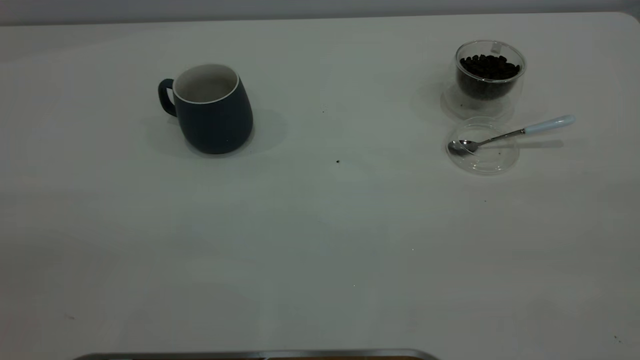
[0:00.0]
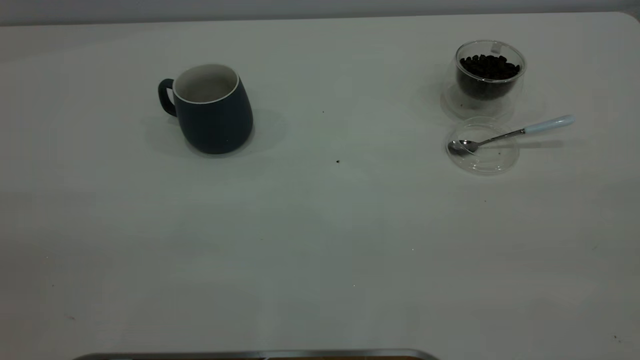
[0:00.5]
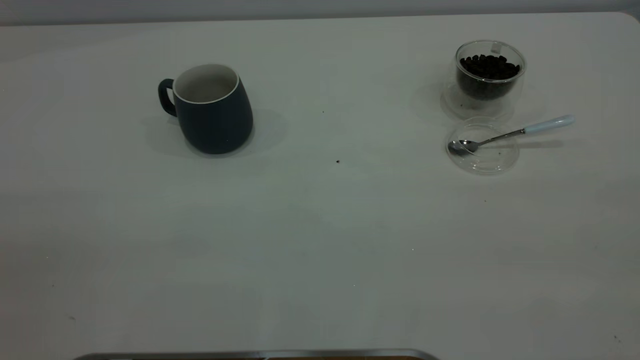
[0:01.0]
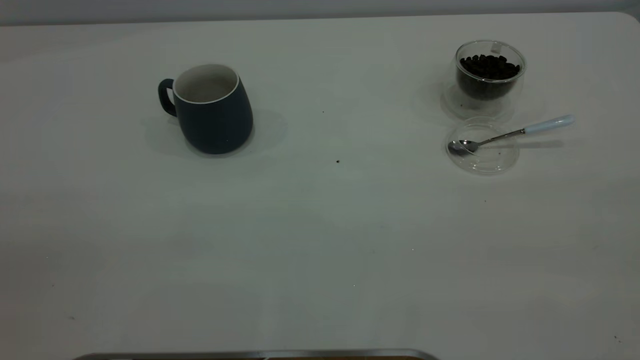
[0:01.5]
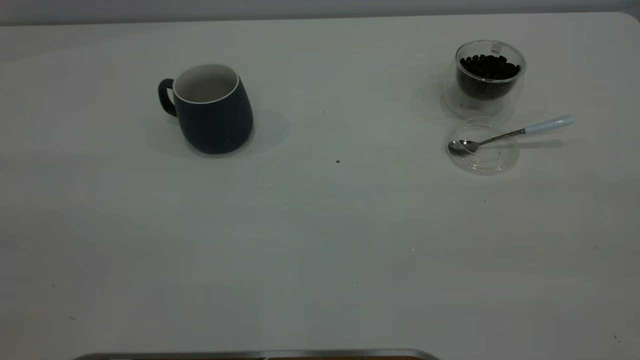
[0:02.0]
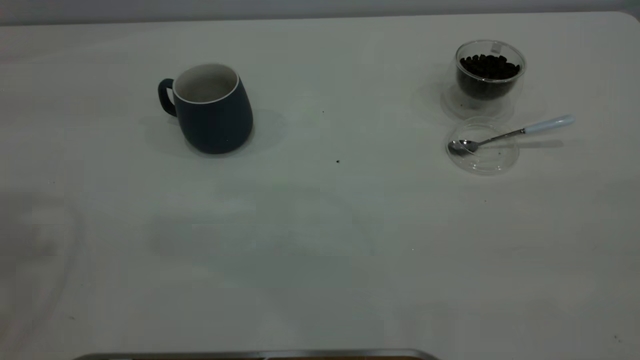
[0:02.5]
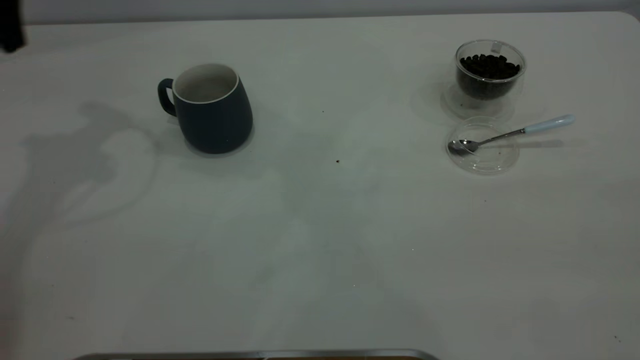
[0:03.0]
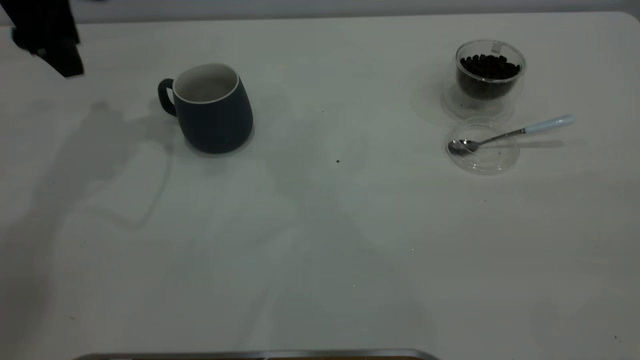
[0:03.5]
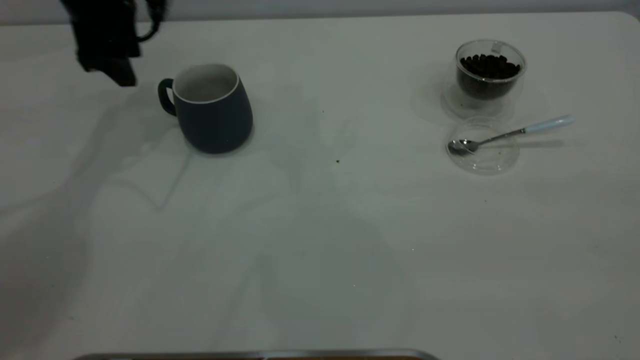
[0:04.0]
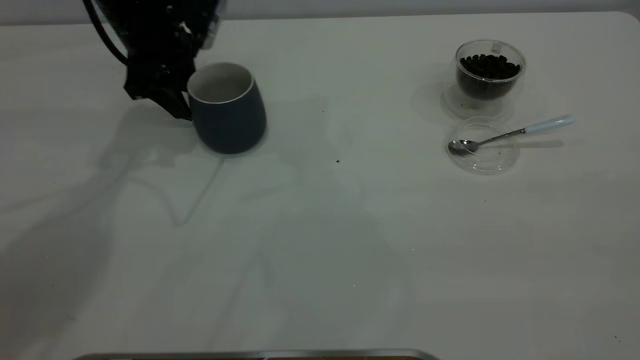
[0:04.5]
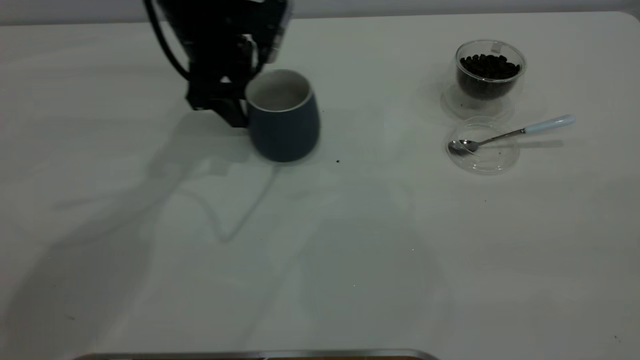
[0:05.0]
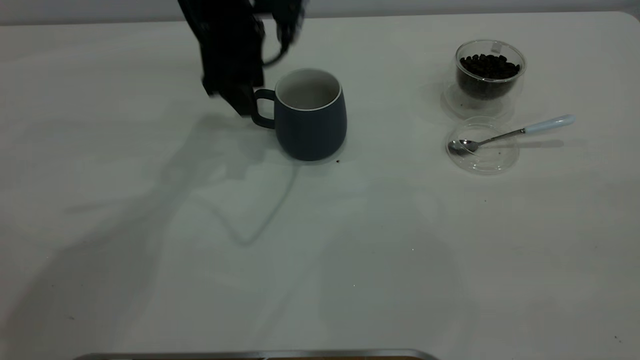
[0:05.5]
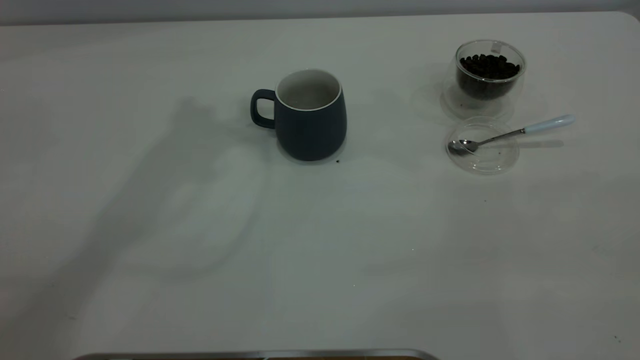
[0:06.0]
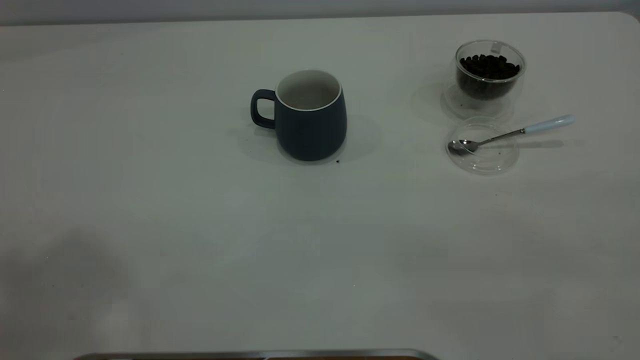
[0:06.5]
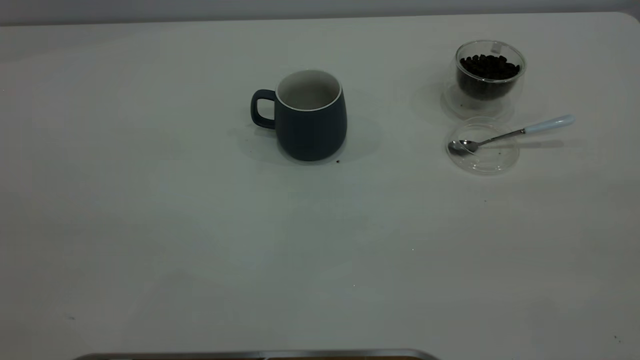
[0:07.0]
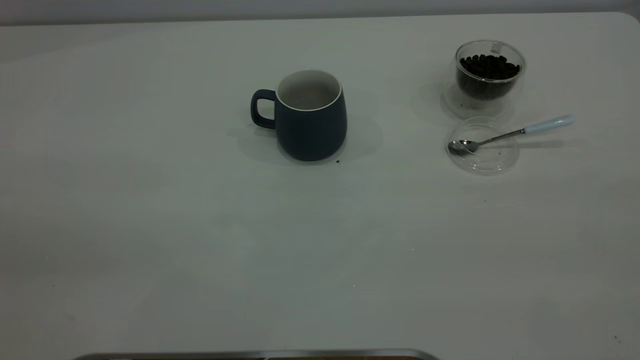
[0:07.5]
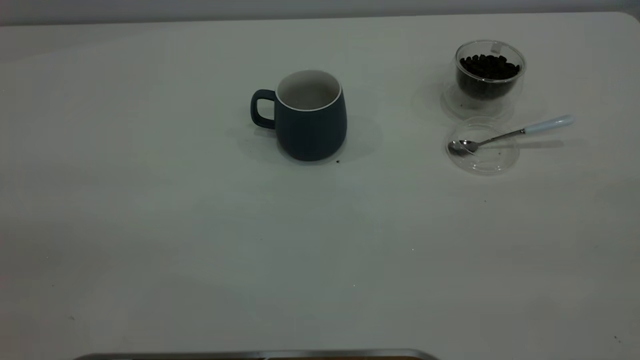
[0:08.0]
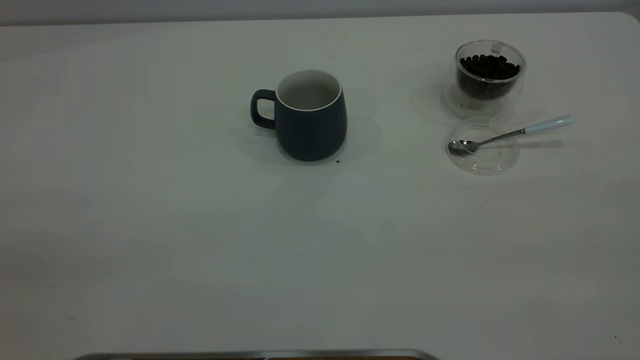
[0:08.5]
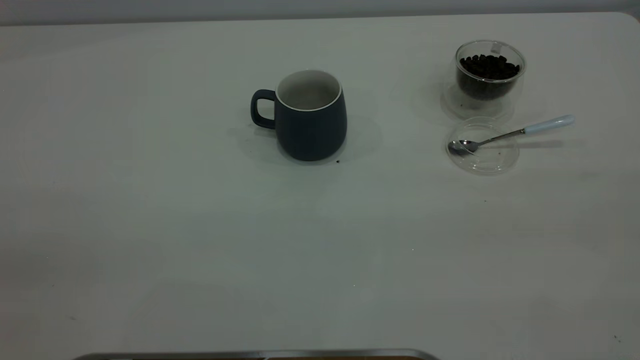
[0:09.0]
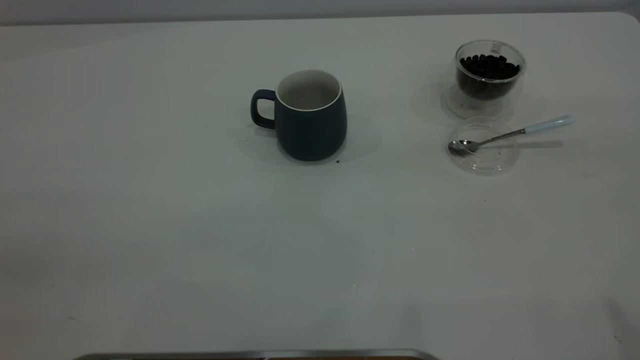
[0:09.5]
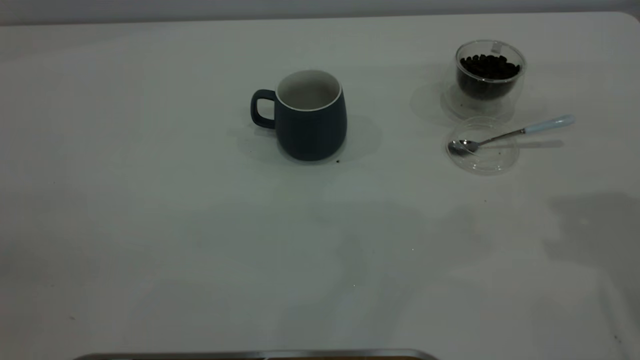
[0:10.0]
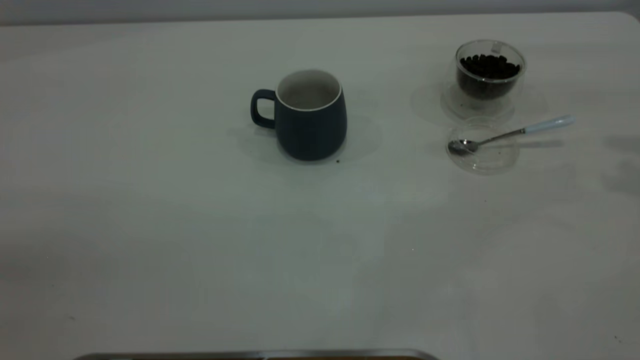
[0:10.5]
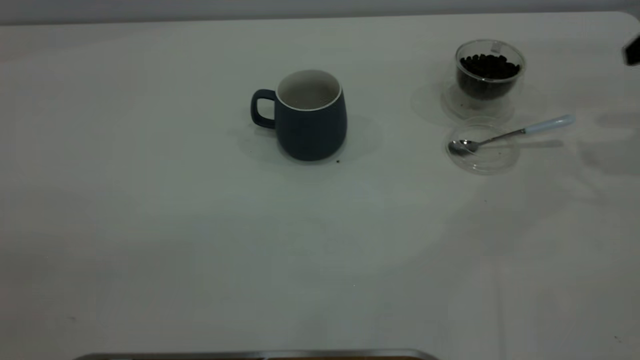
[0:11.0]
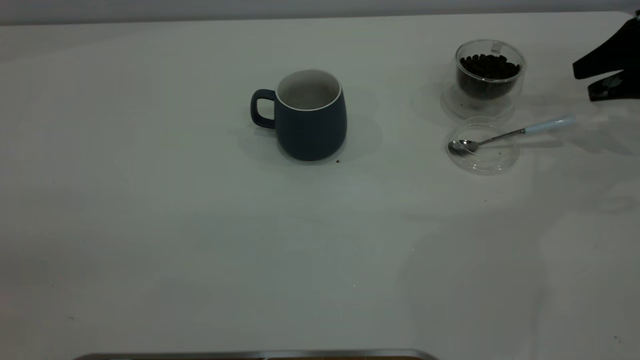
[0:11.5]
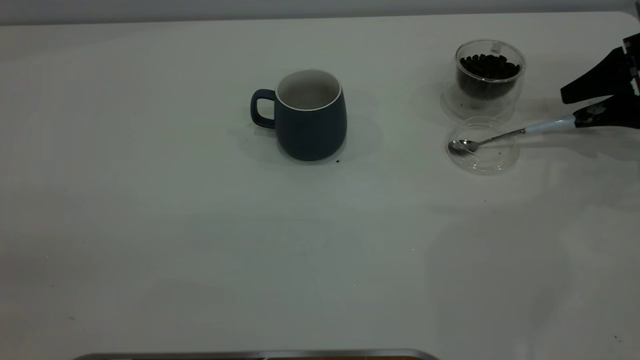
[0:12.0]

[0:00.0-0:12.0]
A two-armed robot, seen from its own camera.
Task of the whole recording: the left gripper place the grey cup in the center of the table, the right gripper take the blue spoon from the cup lid and scoop out the coffee beans from the coffee cup and put them into the grey cup, the right gripper put the spoon back into the cup lid.
Step, 0:00.0 to 0:05.5: Move the cup to the center of view.
0:02.0 to 0:04.0: The left gripper travels forward and downward by some 50 cm.
0:04.0 to 0:06.0: The left gripper is displaced upward by some 25 cm.
0:10.0 to 0:12.0: The right gripper moves downward, forward and to the right, roughly 30 cm.

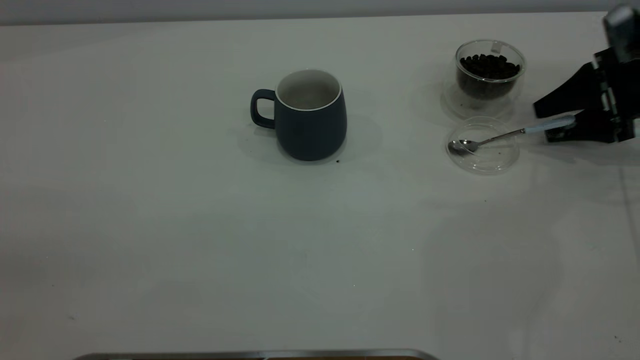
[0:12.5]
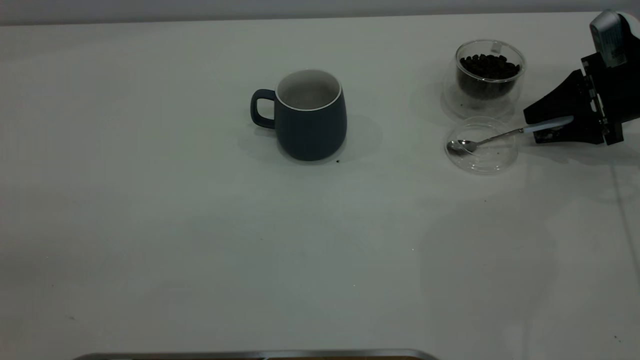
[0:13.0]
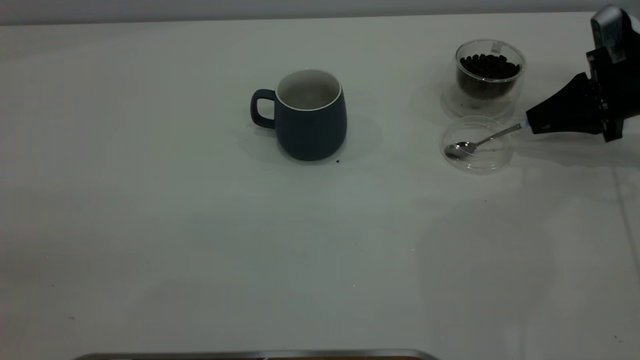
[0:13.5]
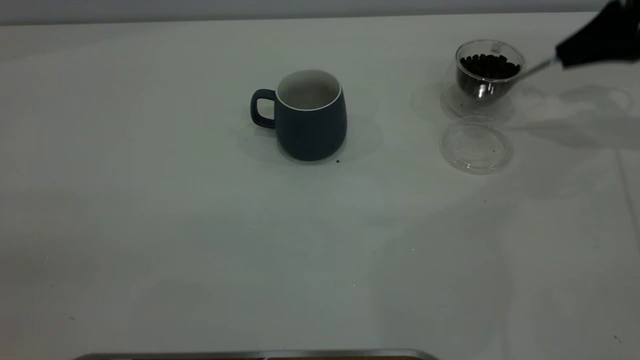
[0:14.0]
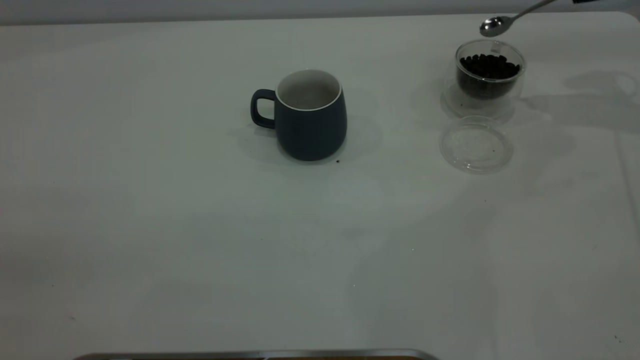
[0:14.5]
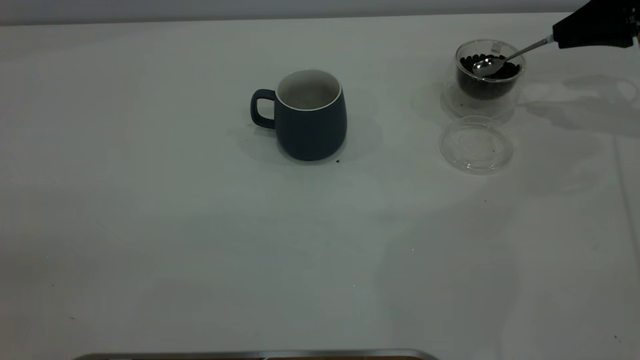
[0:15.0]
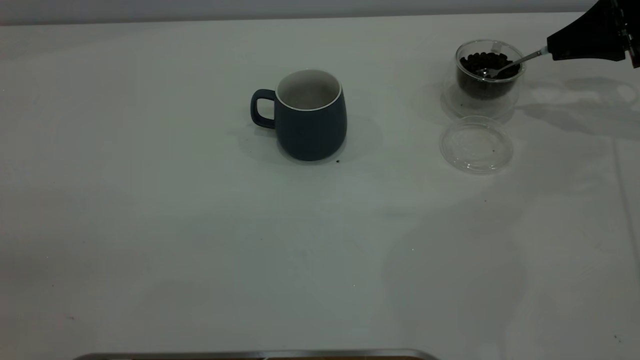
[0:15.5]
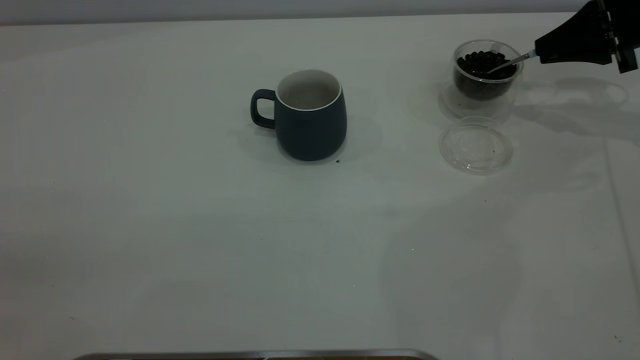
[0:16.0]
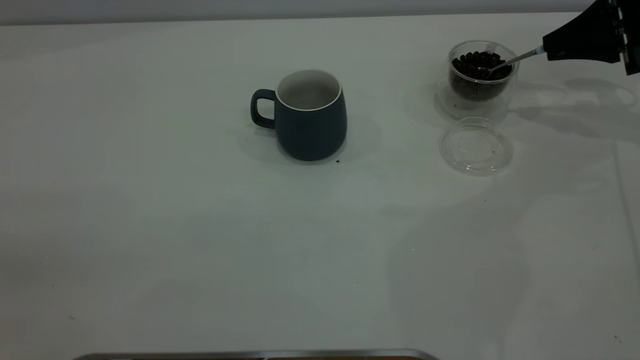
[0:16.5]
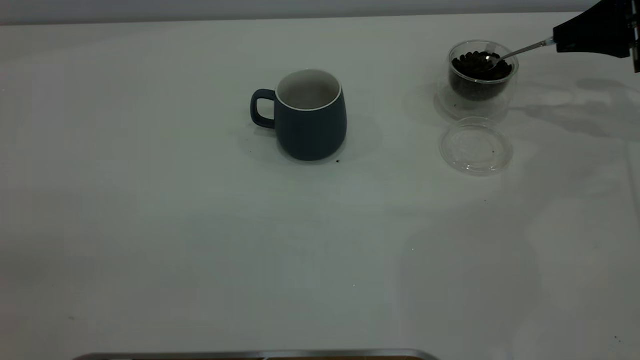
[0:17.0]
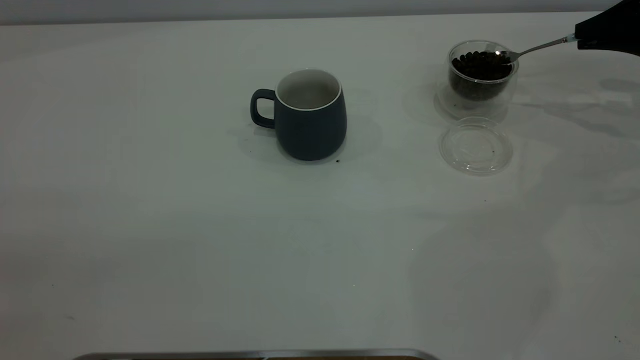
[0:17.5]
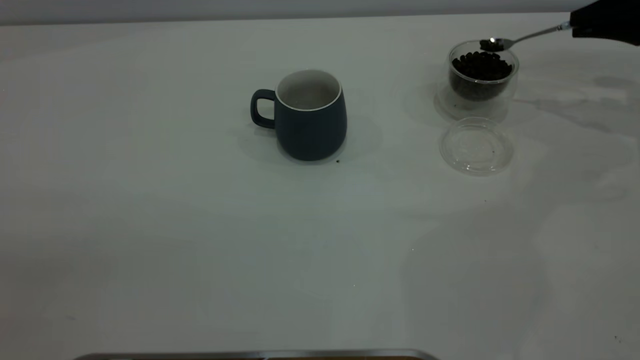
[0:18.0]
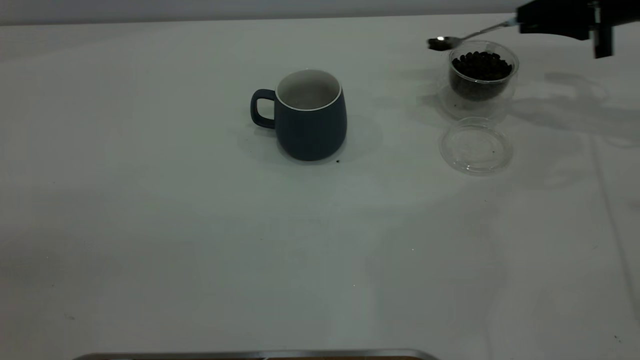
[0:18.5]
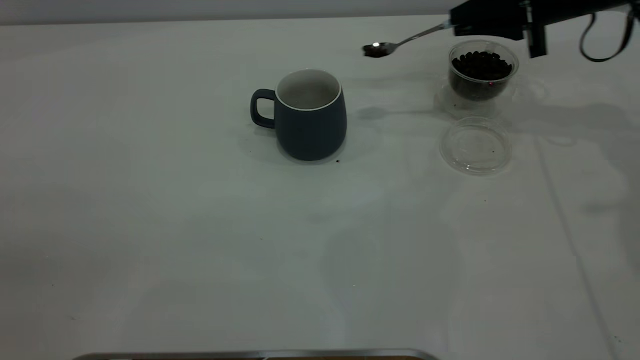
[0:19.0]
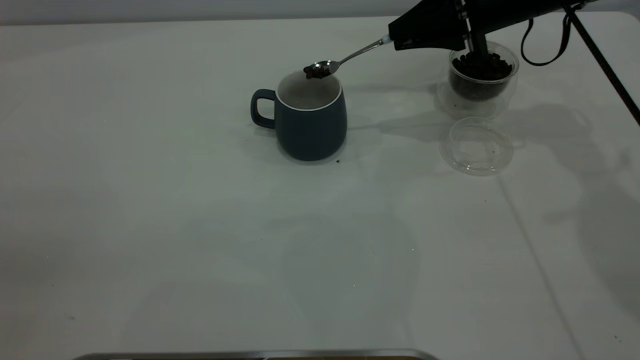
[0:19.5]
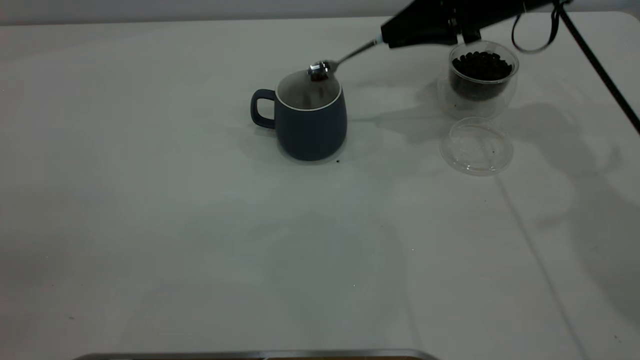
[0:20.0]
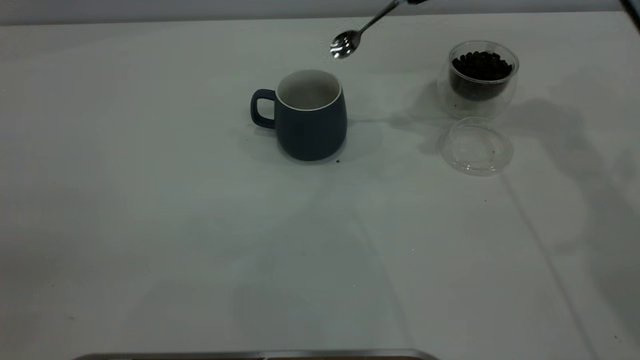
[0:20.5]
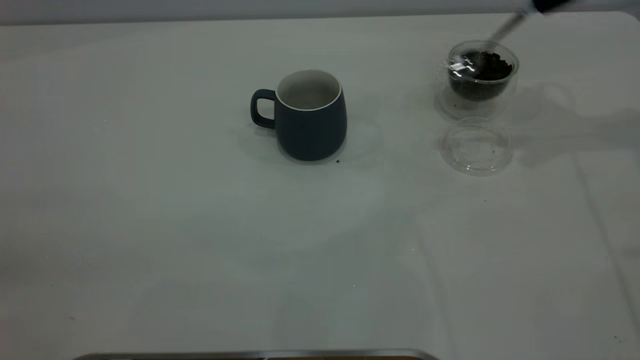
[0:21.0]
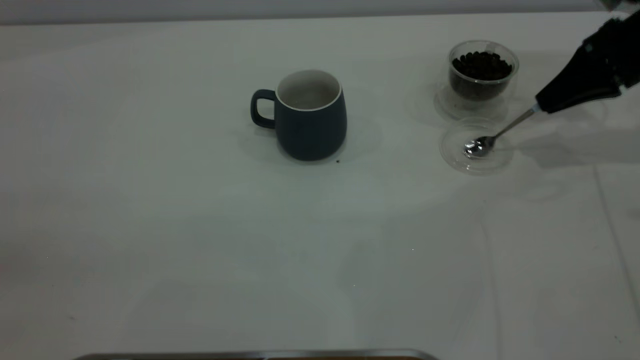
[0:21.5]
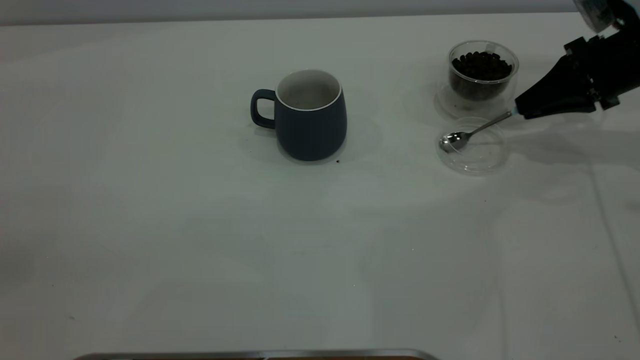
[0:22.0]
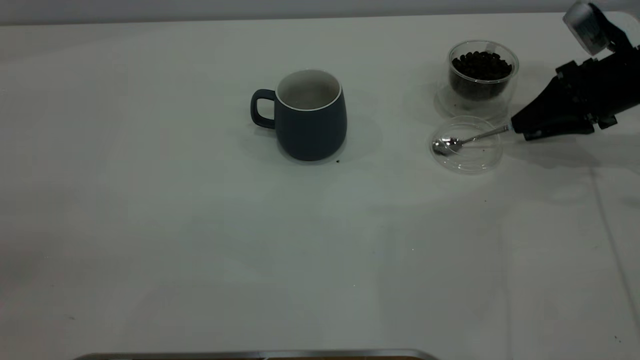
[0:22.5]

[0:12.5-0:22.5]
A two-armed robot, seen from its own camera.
Task of the whole recording: the left gripper place the grey cup in the center of the table, the right gripper take the blue spoon from the cup lid and scoop out the coffee beans from the coffee cup and put them into the grey cup, the right gripper put the spoon back into the cup lid.
Step, 0:14.0 to 0:20.0: Scoop a spoonful of beans into the cup.
0:12.5 to 0:14.5: The right gripper heads upward, covering about 15 cm, and closes up.
0:14.5 to 0:16.5: The right gripper is displaced downward by some 5 cm.
0:16.5 to 0:18.5: The grippers stay close to where they were, moving slightly.
0:18.5 to 0:20.5: The right gripper shifts about 15 cm to the left and upward.
0:20.5 to 0:22.5: The right gripper travels downward and to the right by approximately 20 cm, and opens.
